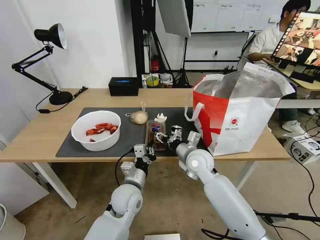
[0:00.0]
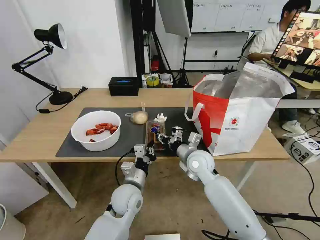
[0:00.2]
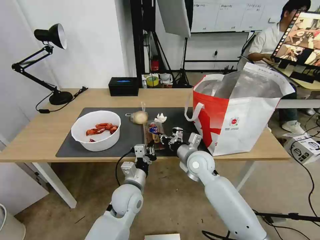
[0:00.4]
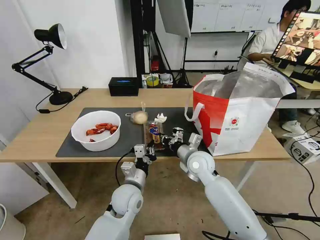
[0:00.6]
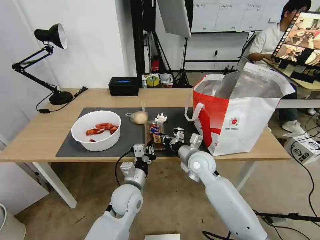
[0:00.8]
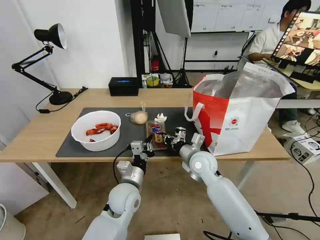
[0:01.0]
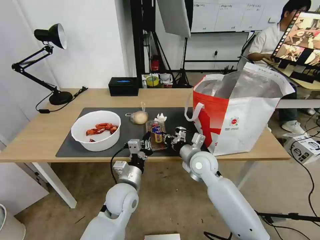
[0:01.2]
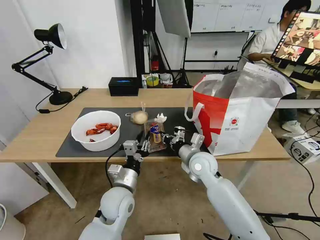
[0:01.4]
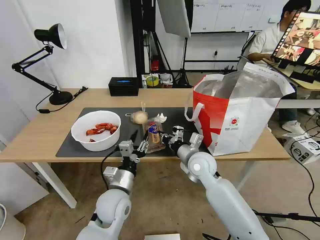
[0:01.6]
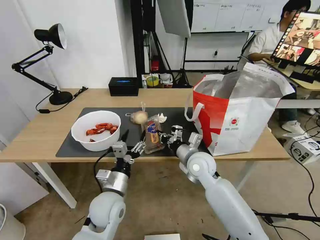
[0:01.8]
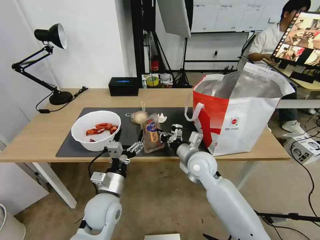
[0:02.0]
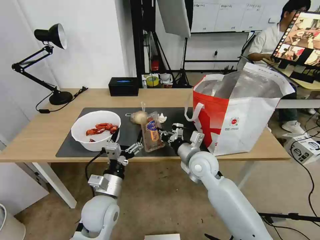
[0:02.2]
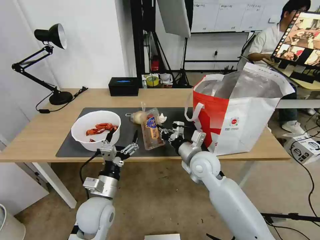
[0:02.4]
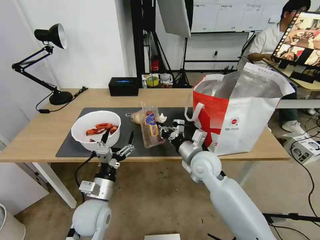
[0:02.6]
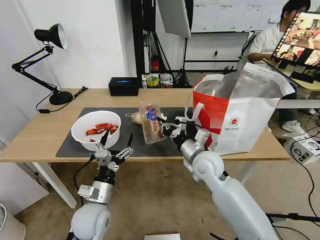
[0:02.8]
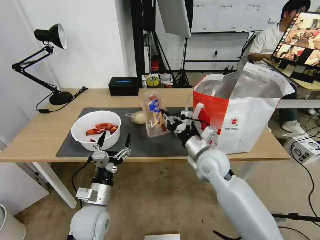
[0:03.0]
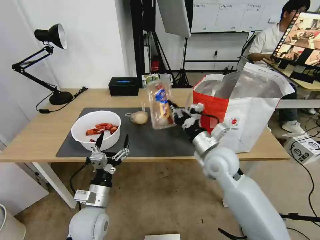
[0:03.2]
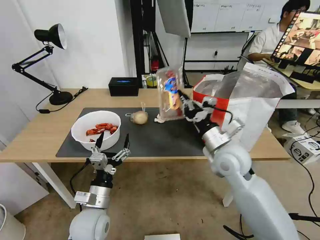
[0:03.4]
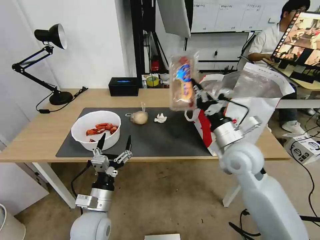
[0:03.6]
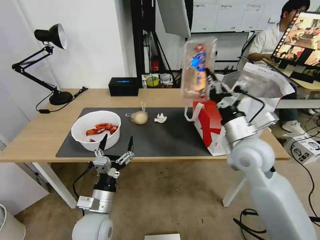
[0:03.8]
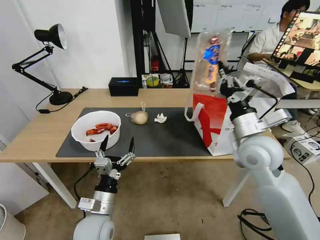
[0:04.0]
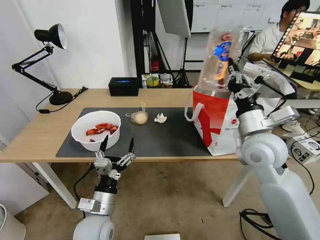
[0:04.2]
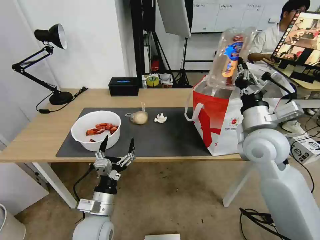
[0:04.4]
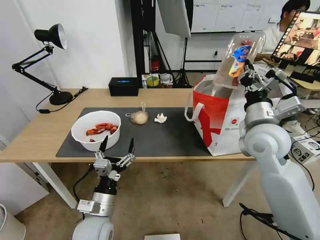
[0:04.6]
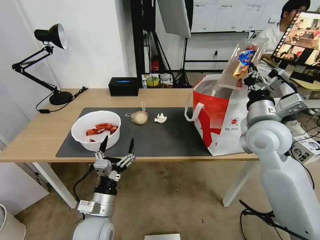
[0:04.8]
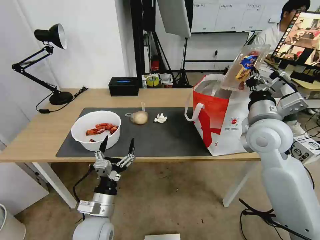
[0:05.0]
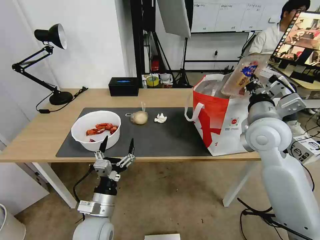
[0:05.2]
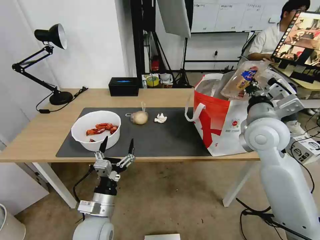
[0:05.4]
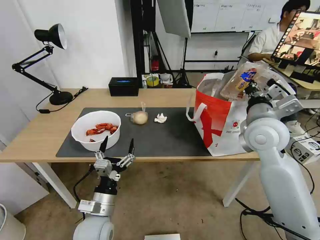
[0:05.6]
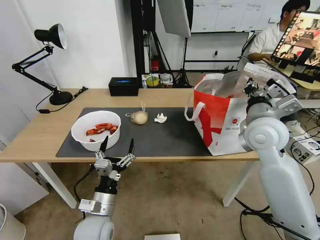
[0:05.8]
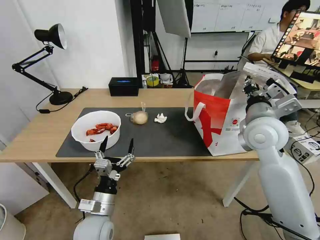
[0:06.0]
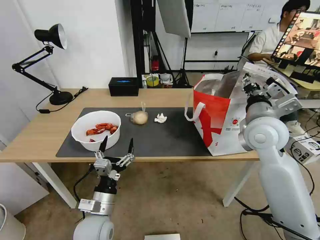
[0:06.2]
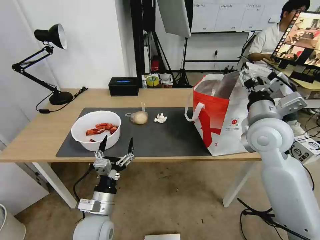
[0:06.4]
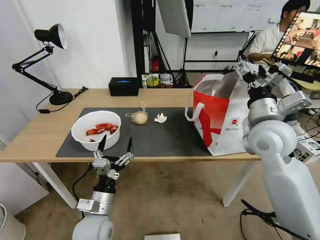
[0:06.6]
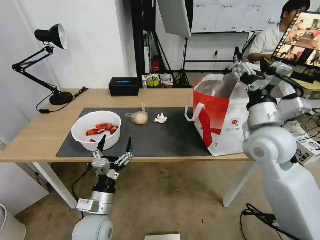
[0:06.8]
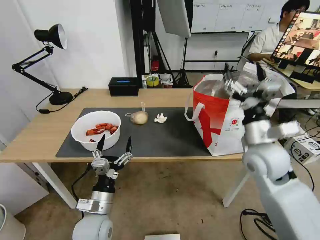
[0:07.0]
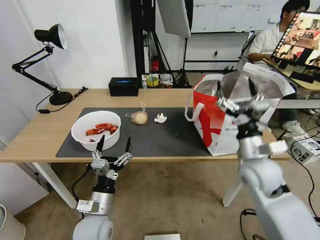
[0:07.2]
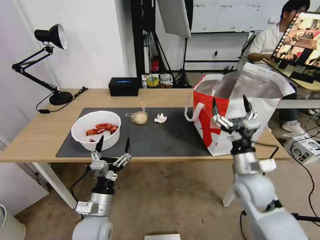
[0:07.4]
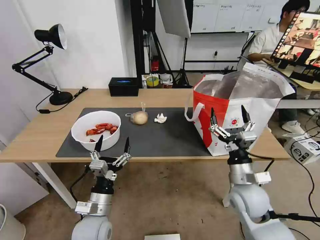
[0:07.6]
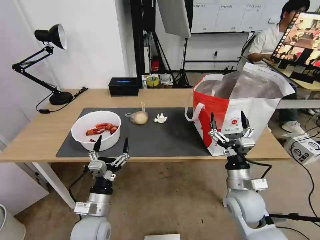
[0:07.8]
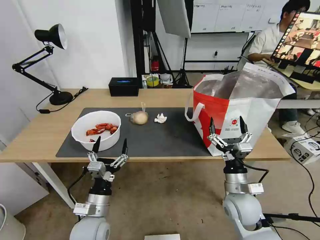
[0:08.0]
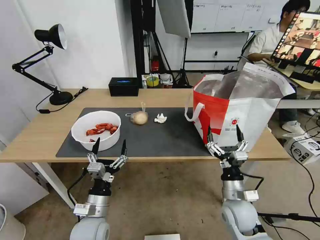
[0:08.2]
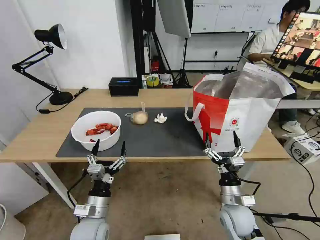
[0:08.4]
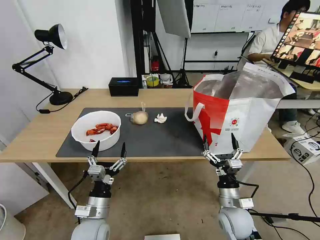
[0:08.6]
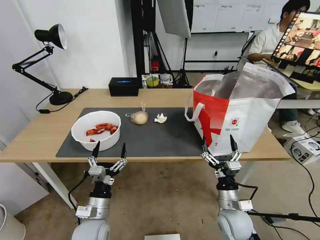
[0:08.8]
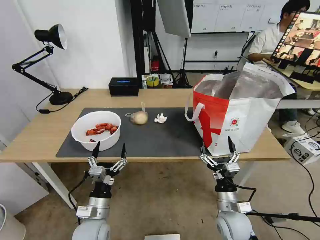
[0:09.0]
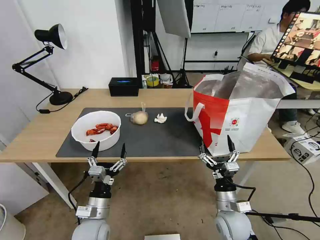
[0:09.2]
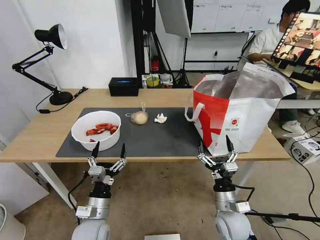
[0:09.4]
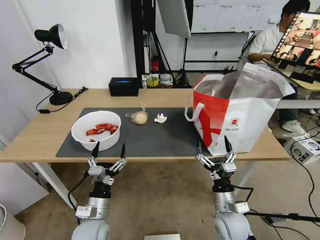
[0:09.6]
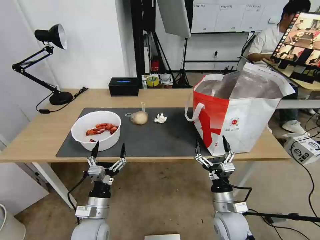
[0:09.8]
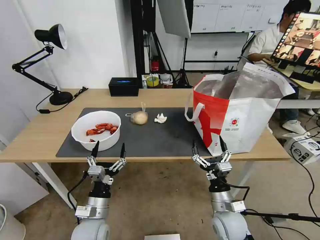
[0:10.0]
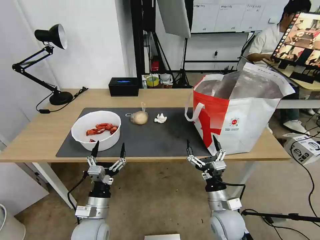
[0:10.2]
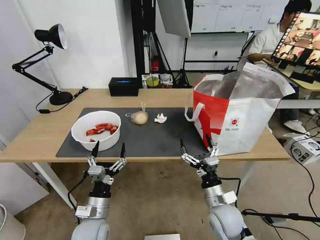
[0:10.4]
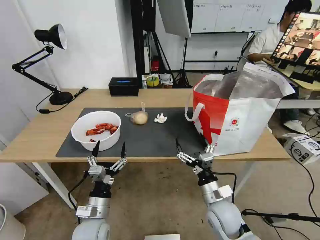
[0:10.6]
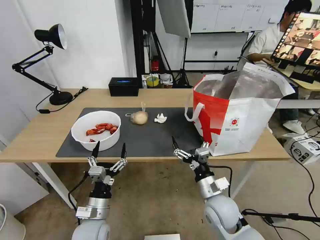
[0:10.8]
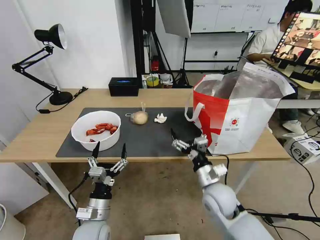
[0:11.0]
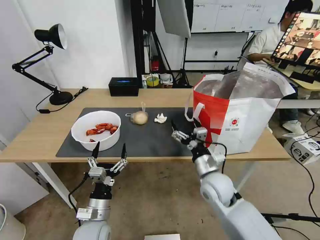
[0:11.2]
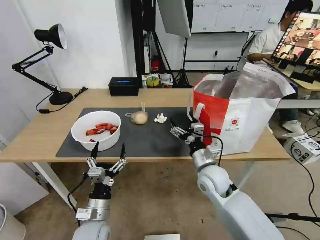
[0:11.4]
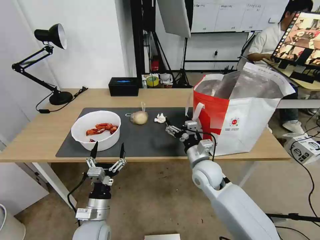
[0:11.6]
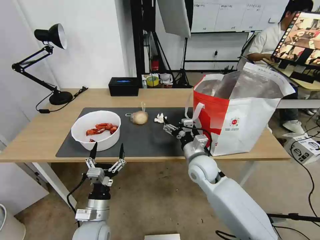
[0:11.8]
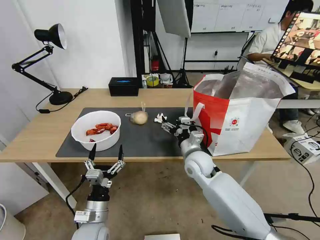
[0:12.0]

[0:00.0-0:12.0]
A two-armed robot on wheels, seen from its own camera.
Task of the whole recording: Pick up the trash from the table and place it into the takeout bag.
0:00.0 to 0:01.6: The left gripper ends up roughly 5 cm from where it was, and opens up. The right gripper closes up.
0:01.6 to 0:03.0: The left gripper travels to the left by roughly 5 cm, and opens up, while the right gripper shifts by roughly 5 cm.
0:03.0 to 0:04.4: The right gripper travels upward and to the right by some 15 cm.
0:04.4 to 0:06.0: The right gripper opens.
0:06.0 to 0:07.6: The right gripper goes approximately 20 cm downward and backward, and opens up.
0:07.6 to 0:09.0: The right gripper heads downward, covering about 10 cm.
0:09.0 to 0:10.4: The grippers move only a little.
0:10.4 to 0:12.0: The right gripper moves forward, upward and to the left, some 20 cm.

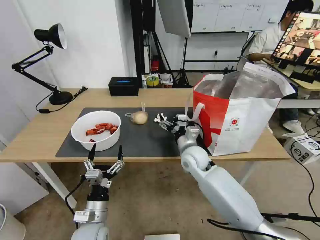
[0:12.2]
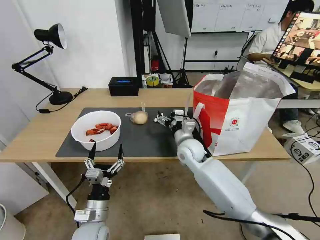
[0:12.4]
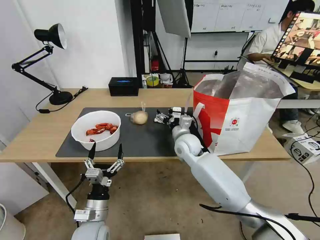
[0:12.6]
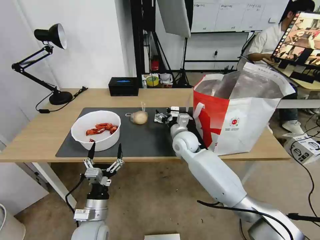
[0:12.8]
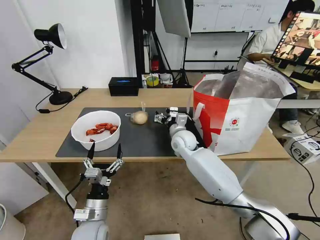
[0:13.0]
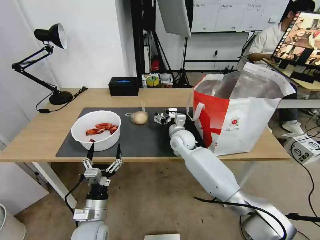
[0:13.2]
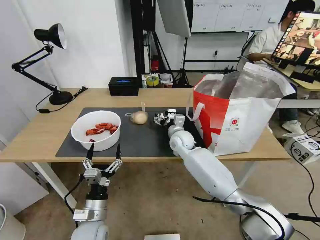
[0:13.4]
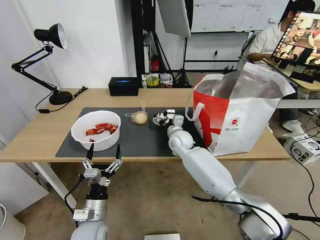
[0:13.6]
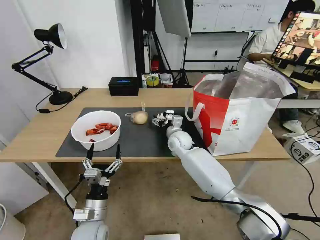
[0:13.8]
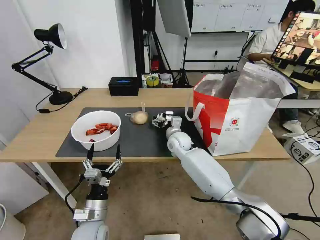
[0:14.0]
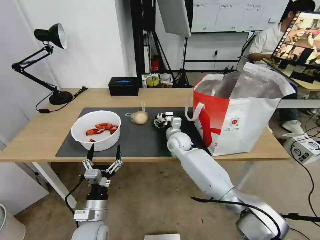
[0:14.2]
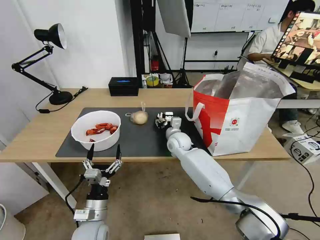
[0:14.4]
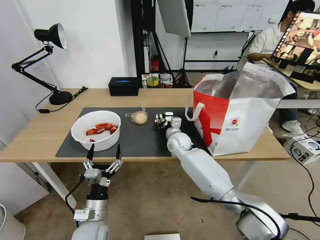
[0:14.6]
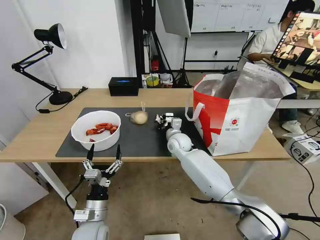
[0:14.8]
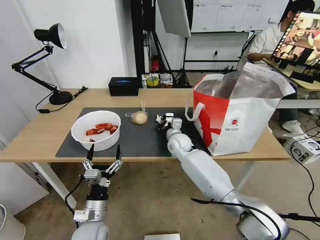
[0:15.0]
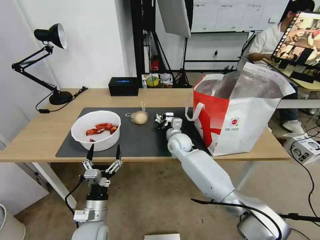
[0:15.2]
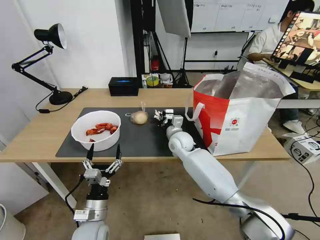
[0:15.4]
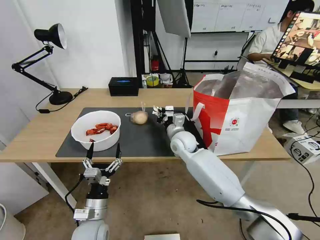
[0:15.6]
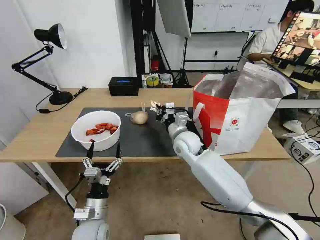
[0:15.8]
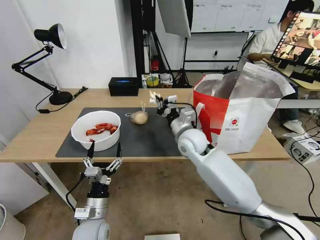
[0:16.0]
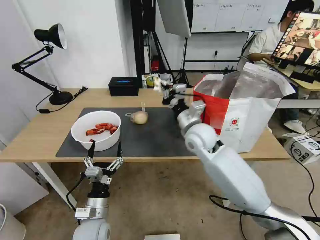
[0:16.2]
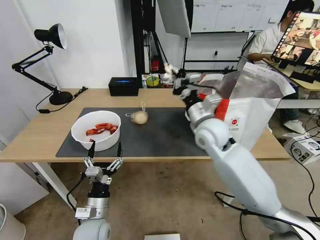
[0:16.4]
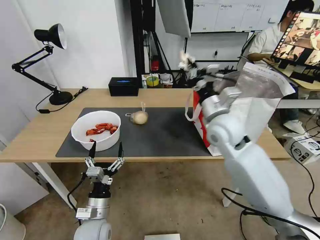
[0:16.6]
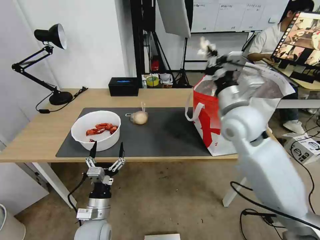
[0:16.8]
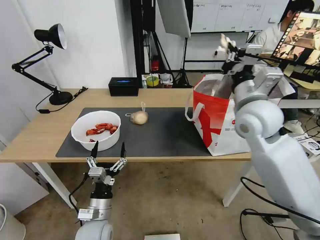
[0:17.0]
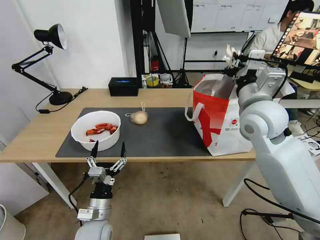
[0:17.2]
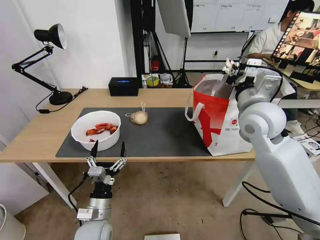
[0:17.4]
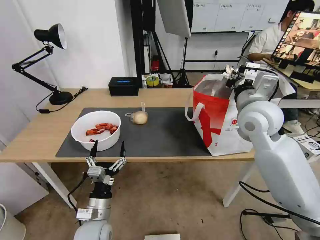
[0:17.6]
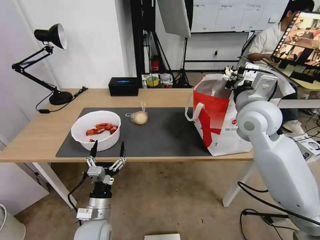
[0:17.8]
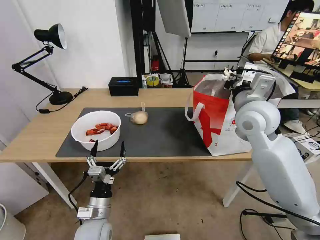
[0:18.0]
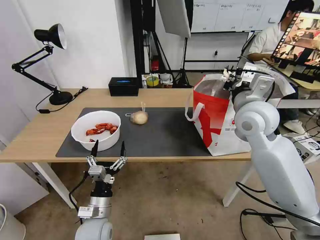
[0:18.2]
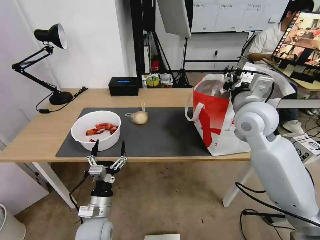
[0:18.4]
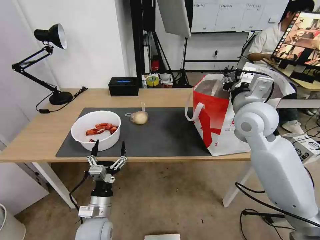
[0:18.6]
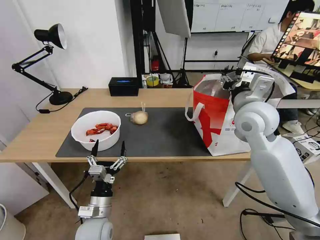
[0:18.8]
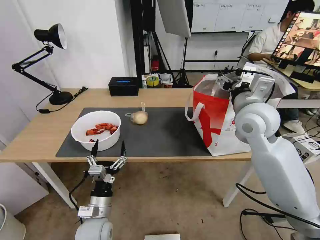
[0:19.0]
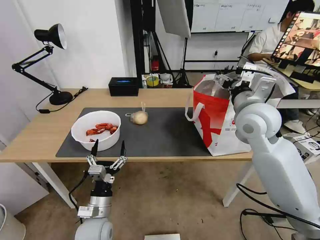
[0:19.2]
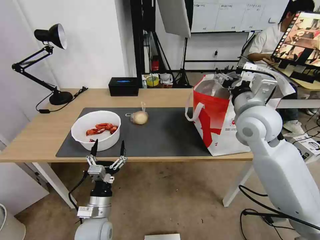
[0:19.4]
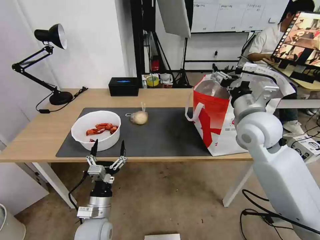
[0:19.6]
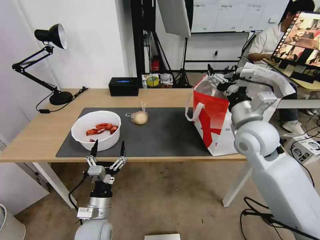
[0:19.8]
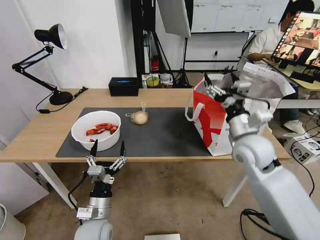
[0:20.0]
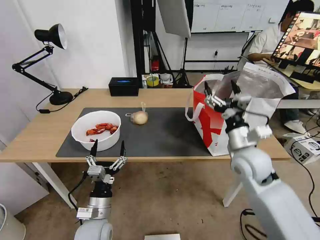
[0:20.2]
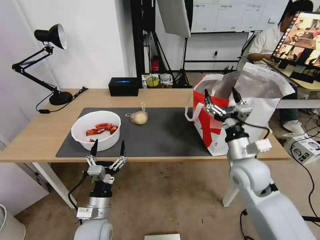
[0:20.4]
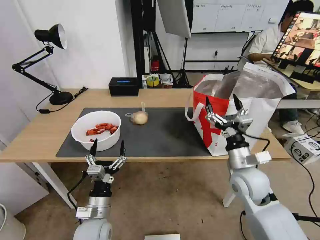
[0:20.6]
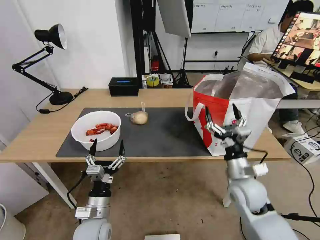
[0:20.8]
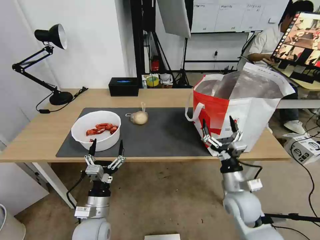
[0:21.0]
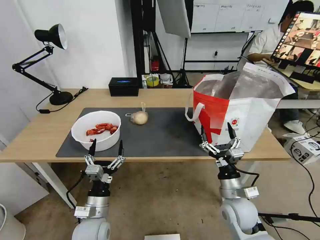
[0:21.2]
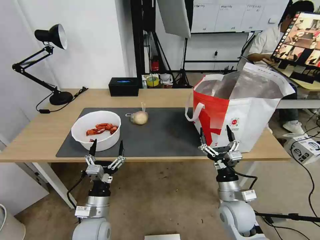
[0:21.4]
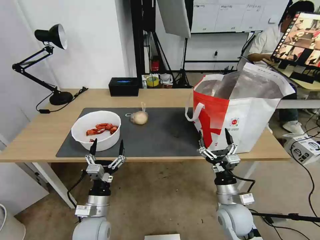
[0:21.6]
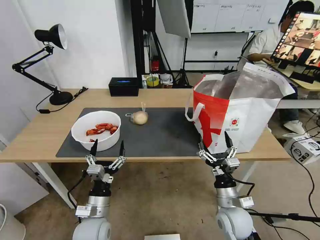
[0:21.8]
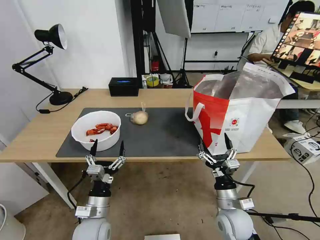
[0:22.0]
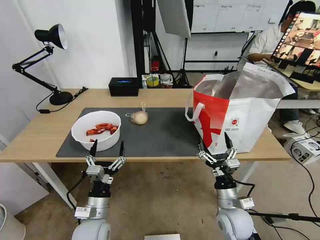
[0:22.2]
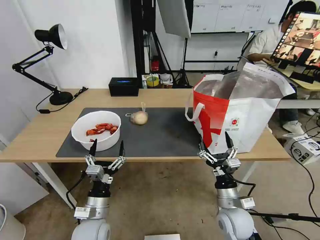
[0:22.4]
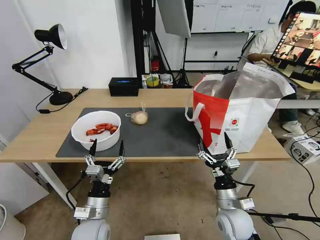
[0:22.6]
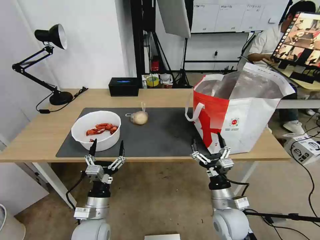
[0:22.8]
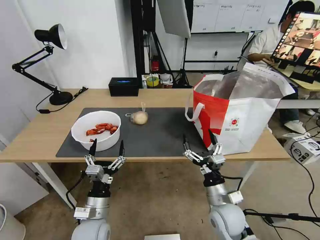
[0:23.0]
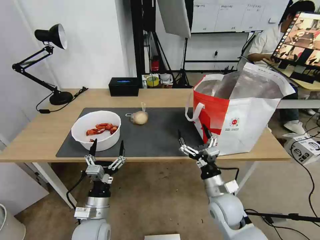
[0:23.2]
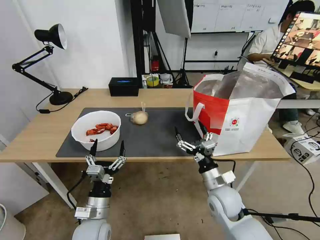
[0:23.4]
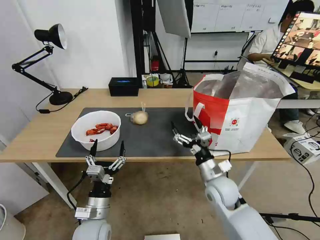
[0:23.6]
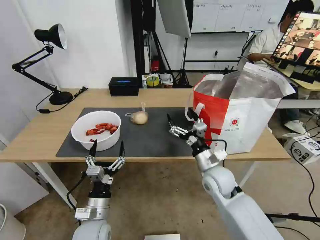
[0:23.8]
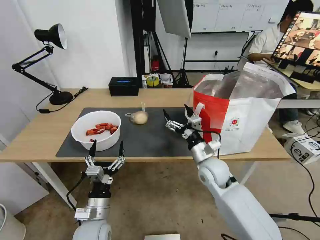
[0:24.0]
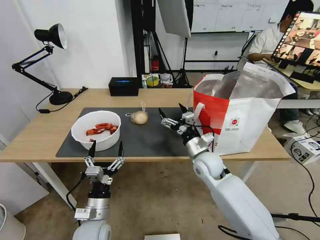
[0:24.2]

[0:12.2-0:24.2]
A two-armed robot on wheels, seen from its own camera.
Task of the whole recording: Pick up the trash from the table and place it into the takeout bag.
0:12.2 to 0:13.8: The right gripper travels forward by about 10 cm.
0:13.8 to 0:15.2: The right gripper closes.
0:15.2 to 0:16.6: The right gripper moves upward, backward and to the right, some 25 cm.
0:16.6 to 0:18.2: The right gripper goes some 5 cm to the right.
0:18.2 to 0:19.8: The right gripper opens.
0:19.8 to 0:21.2: The right gripper travels downward and backward by about 25 cm.
0:21.2 to 0:22.6: There are only small adjustments of the grippers.
0:22.6 to 0:24.2: The right gripper is displaced forward and upward by about 15 cm.
